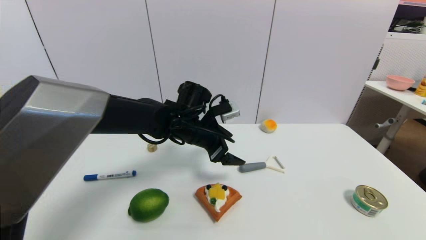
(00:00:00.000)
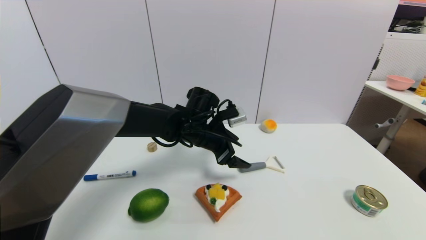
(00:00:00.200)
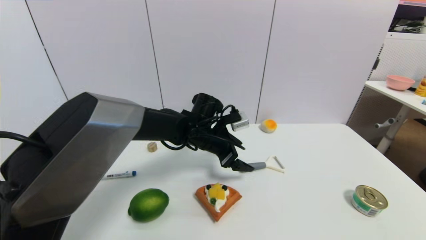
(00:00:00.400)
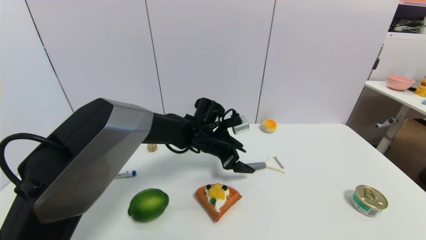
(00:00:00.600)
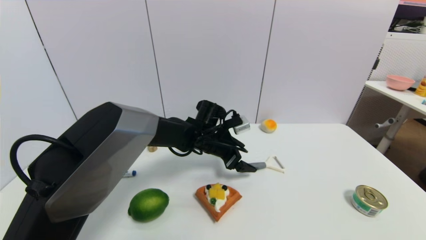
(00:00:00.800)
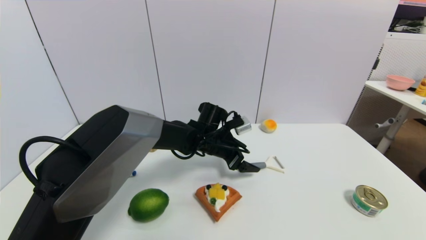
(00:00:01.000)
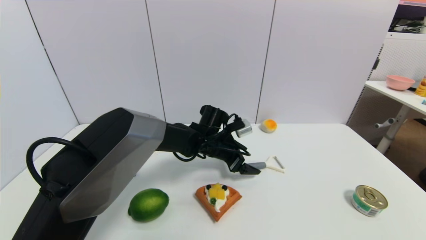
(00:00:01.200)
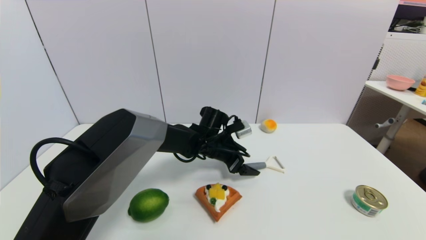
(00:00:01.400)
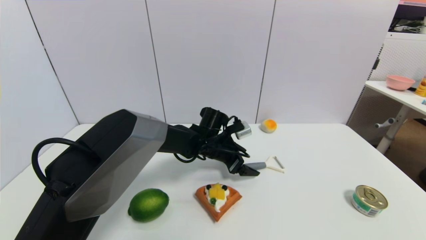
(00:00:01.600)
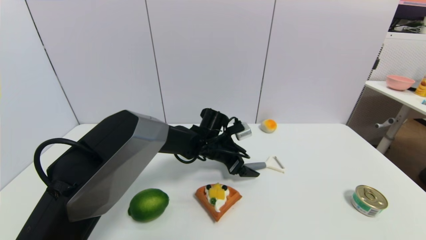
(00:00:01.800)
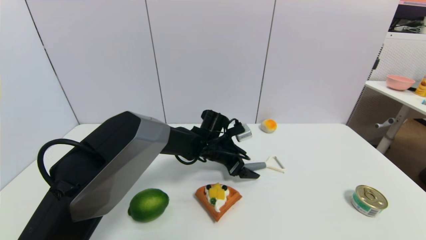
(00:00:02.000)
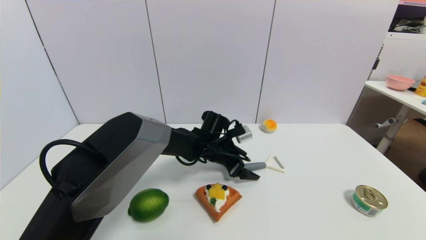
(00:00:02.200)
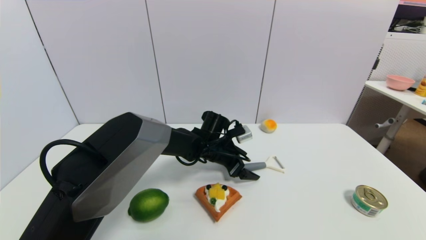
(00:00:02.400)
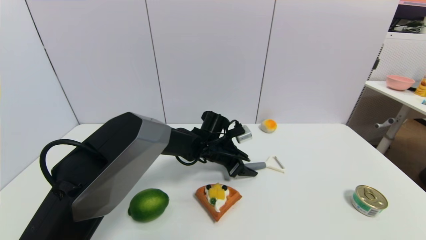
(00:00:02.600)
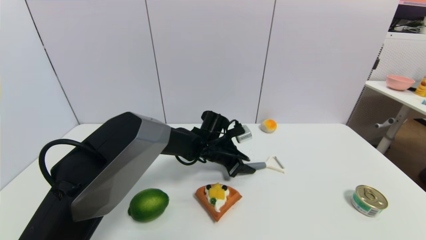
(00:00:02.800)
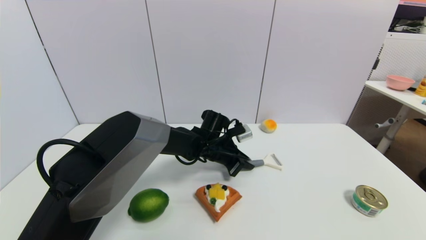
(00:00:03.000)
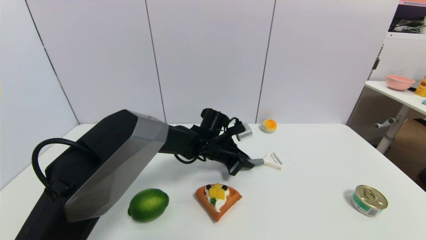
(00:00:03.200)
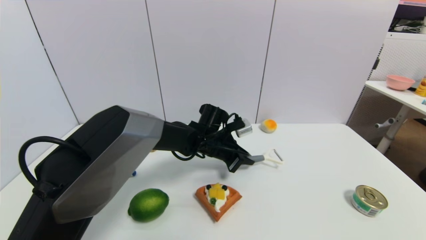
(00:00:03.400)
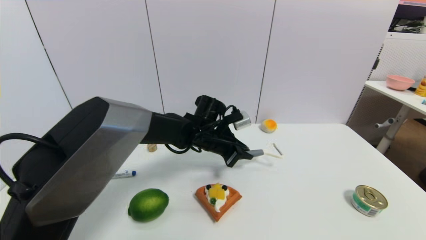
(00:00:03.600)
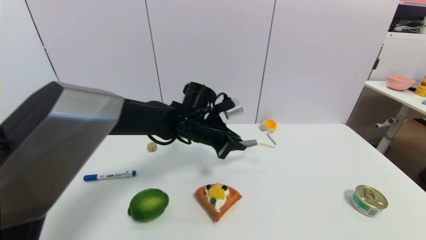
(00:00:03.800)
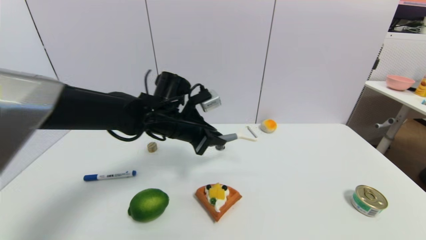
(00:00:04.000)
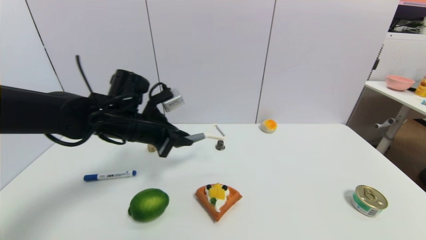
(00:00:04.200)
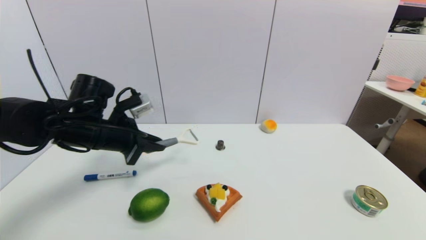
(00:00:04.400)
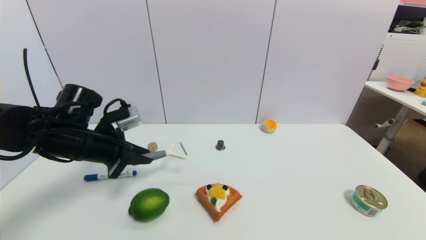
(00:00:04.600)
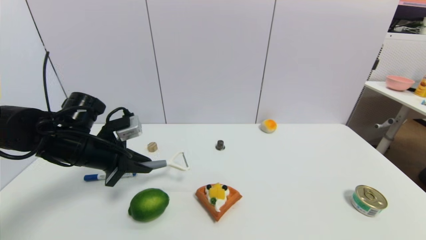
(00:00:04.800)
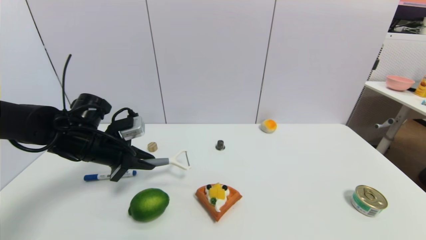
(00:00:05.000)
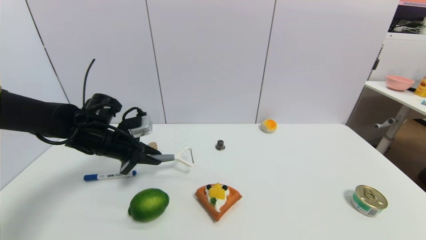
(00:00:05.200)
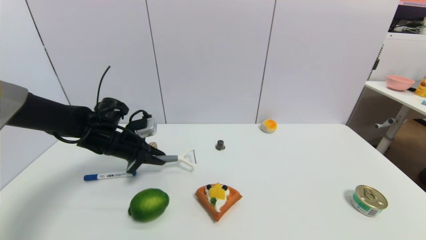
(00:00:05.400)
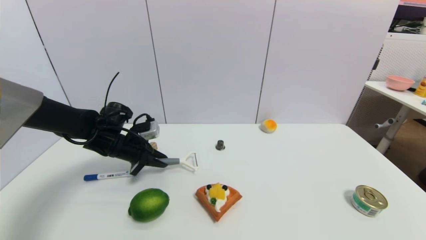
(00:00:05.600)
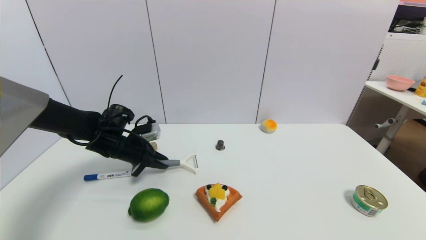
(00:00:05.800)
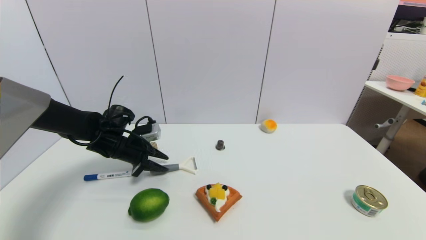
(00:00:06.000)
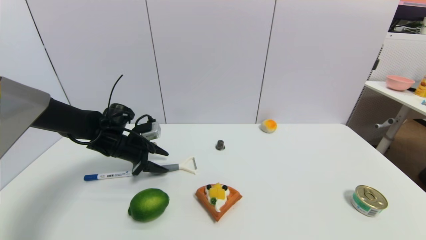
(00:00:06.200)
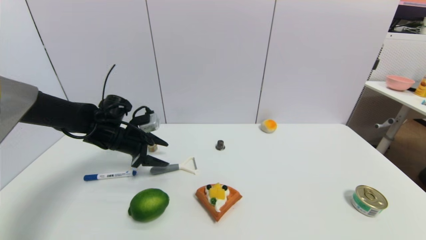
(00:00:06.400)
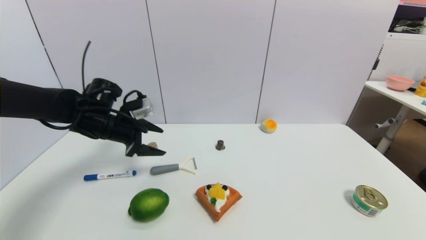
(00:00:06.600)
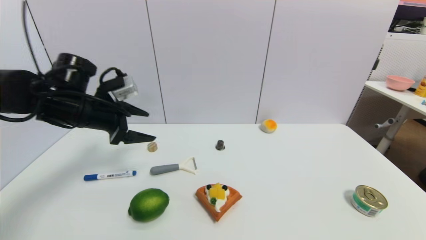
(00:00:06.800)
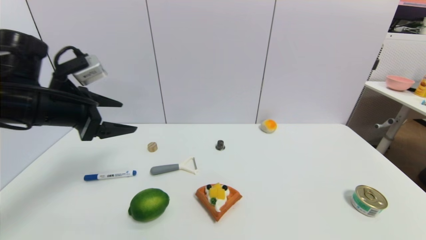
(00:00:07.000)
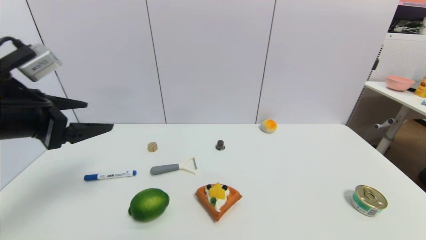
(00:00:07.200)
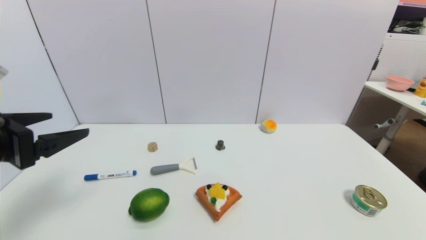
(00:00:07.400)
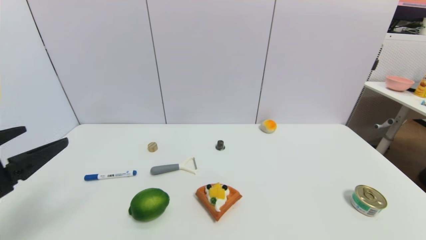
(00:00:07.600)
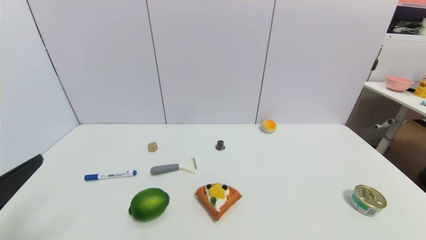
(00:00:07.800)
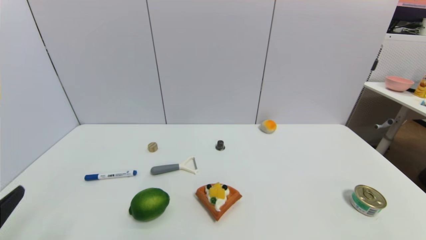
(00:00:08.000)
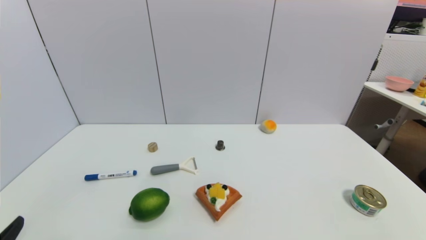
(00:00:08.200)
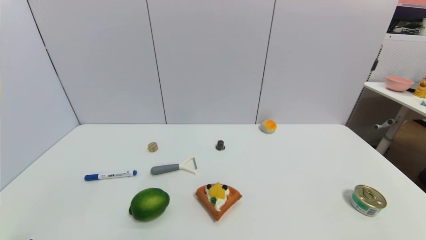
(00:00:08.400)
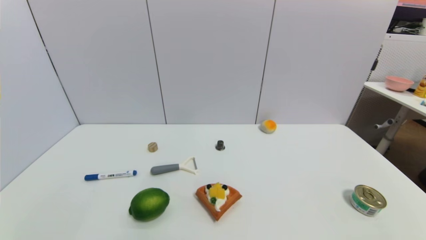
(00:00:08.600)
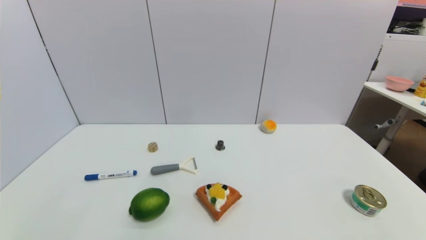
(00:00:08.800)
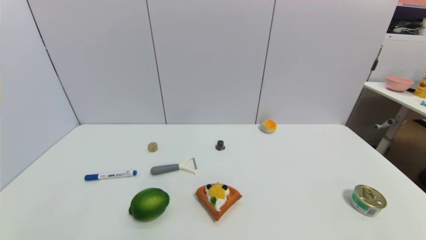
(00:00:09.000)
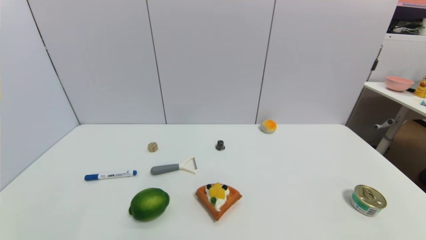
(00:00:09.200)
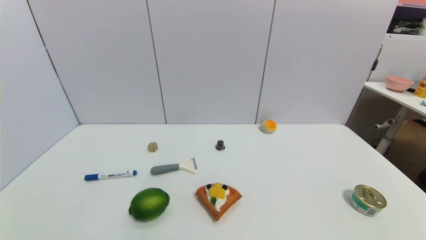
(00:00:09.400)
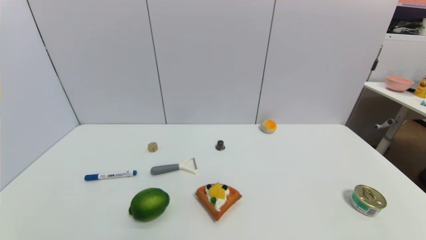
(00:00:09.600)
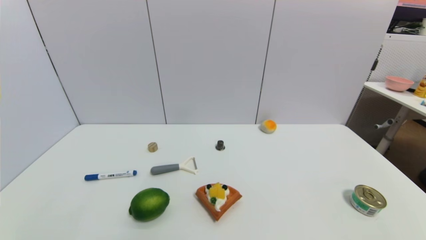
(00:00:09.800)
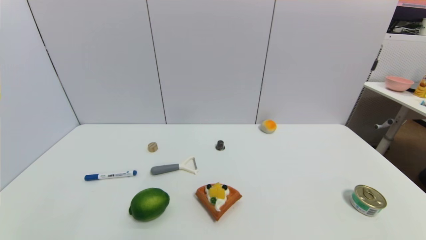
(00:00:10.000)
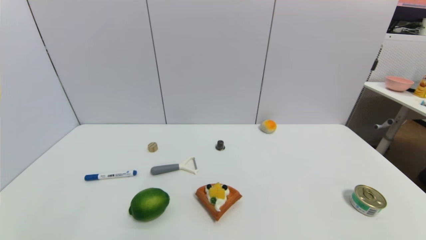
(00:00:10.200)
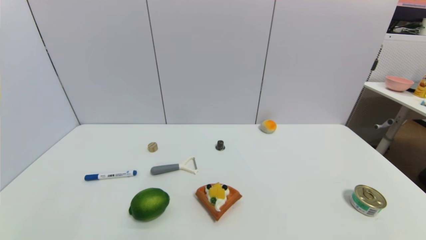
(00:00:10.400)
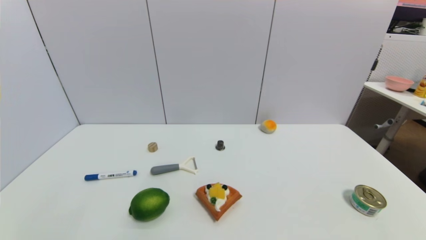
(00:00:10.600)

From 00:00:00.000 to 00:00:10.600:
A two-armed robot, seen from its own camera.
Step, from 00:00:00.000 to 00:00:03.400: Grasp the peeler with left gripper.
Step, from 00:00:03.600 to 00:00:06.200: Place the peeler on the table with left gripper.
From 00:00:00.000 to 00:00:01.600: The left gripper is displaced downward by about 10 cm.
From 00:00:01.600 to 00:00:03.000: The left gripper closes up.
From 00:00:03.000 to 00:00:04.600: The left gripper shifts some 30 cm to the left, backward and upward.
From 00:00:04.600 to 00:00:06.000: The left gripper is displaced forward and downward by roughly 10 cm.
From 00:00:06.000 to 00:00:07.600: The left gripper is displaced backward and upward by some 30 cm, and opens.
From 00:00:07.600 to 00:00:09.000: The left gripper shifts about 20 cm downward and backward.
From 00:00:09.000 to 00:00:10.600: The two grippers keep their place.

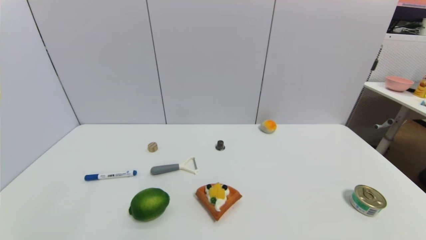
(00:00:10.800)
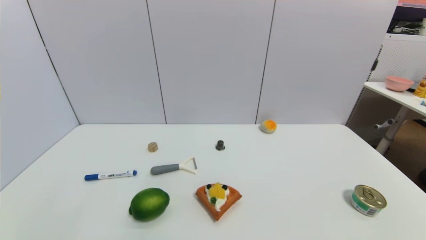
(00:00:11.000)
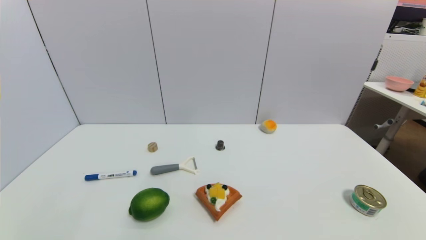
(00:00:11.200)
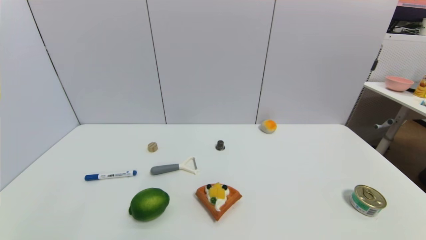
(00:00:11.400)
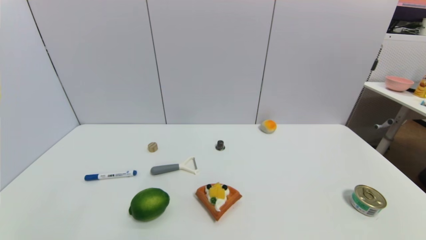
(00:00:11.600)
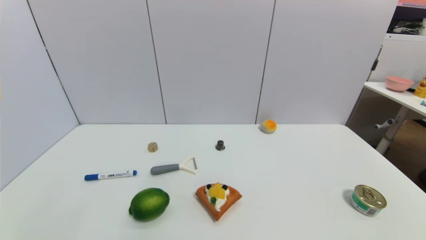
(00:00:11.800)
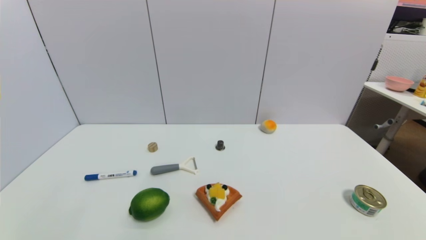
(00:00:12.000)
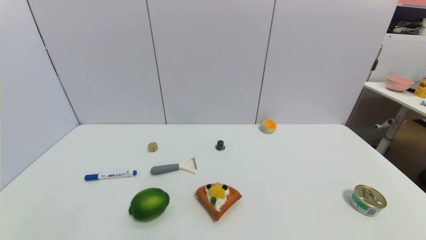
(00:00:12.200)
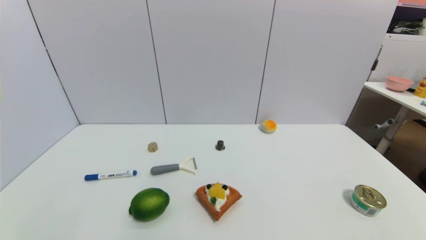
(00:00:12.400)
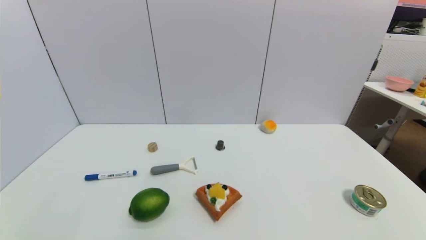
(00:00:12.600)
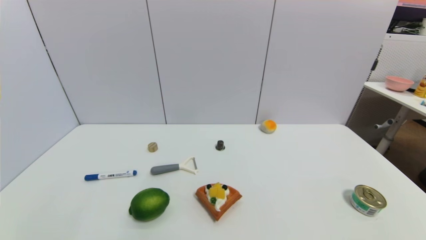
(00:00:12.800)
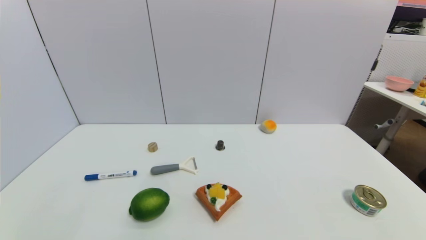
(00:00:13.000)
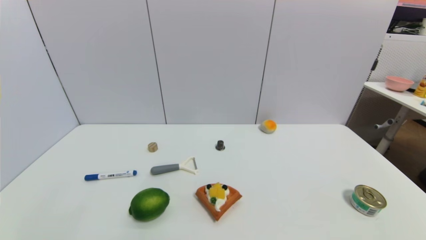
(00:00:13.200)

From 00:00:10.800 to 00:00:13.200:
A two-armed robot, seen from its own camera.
From 00:00:10.800 to 00:00:13.200: Neither gripper changes place.
